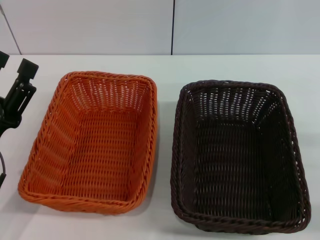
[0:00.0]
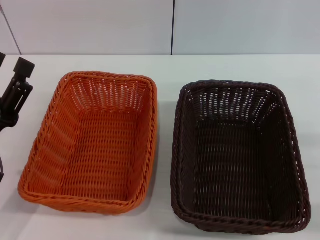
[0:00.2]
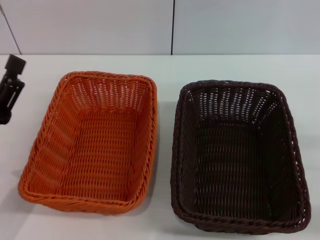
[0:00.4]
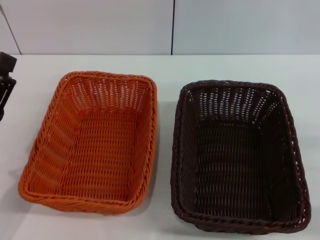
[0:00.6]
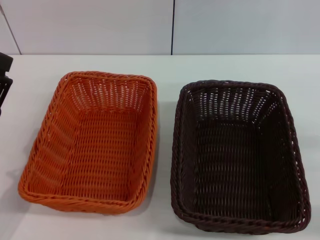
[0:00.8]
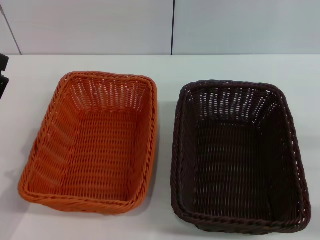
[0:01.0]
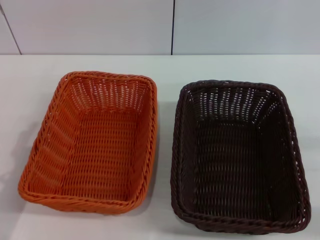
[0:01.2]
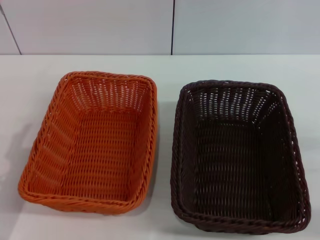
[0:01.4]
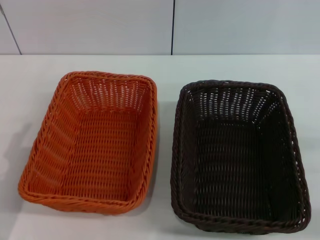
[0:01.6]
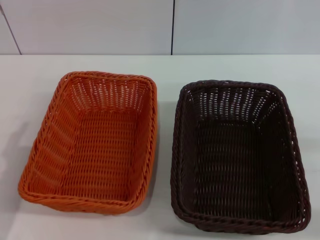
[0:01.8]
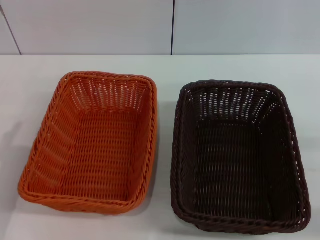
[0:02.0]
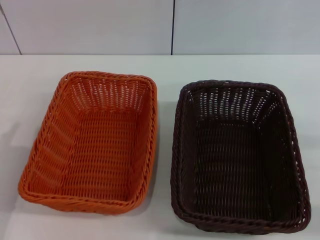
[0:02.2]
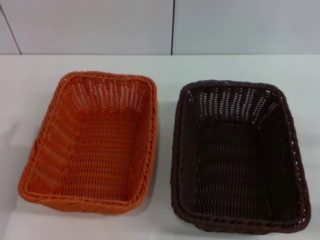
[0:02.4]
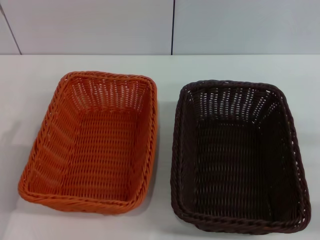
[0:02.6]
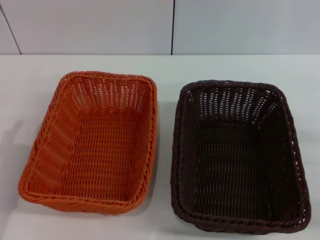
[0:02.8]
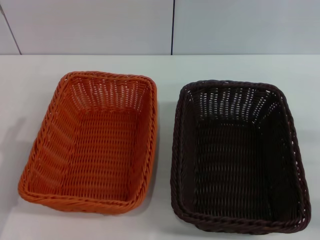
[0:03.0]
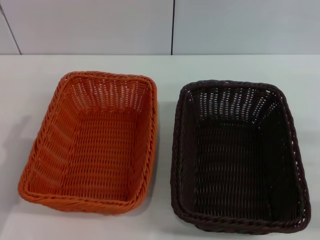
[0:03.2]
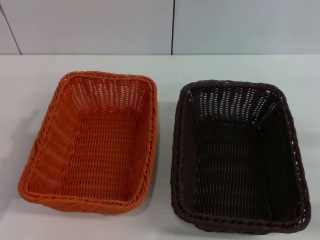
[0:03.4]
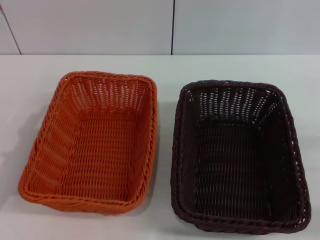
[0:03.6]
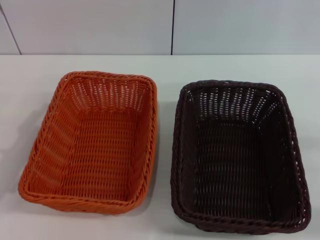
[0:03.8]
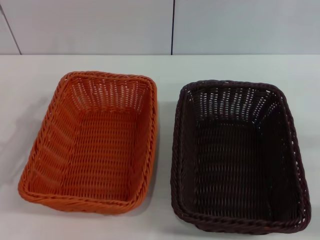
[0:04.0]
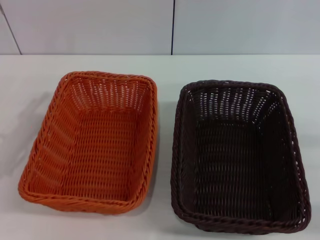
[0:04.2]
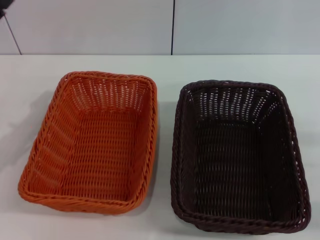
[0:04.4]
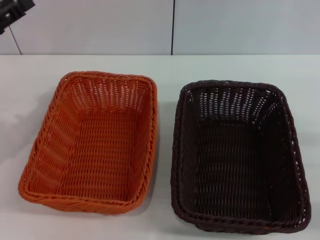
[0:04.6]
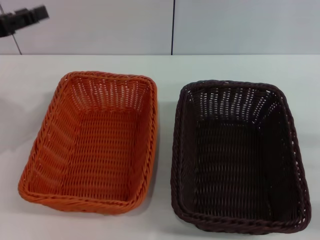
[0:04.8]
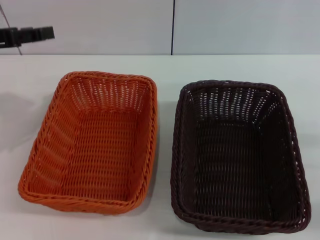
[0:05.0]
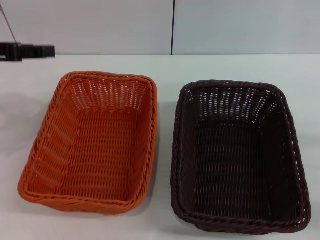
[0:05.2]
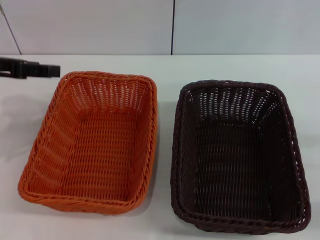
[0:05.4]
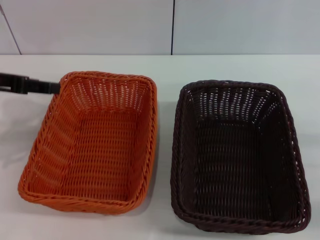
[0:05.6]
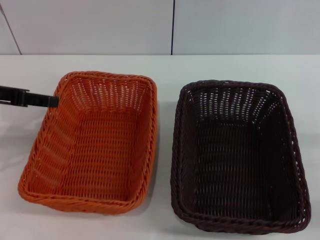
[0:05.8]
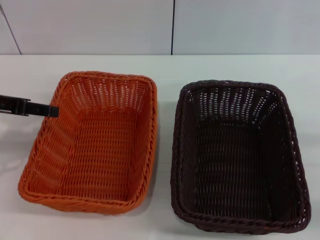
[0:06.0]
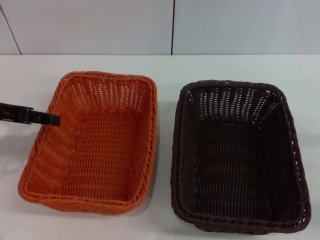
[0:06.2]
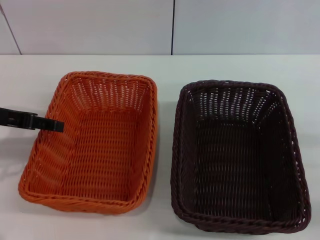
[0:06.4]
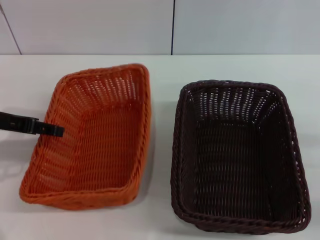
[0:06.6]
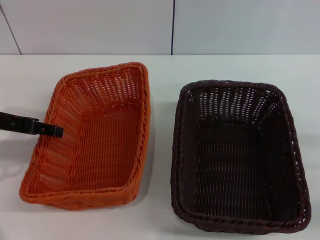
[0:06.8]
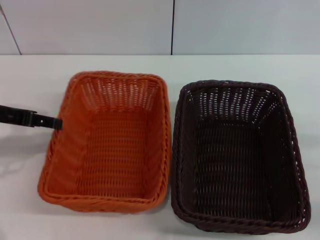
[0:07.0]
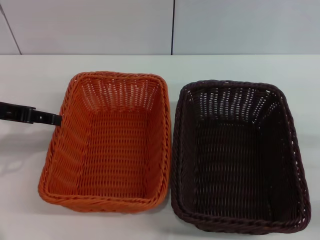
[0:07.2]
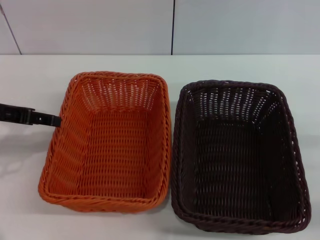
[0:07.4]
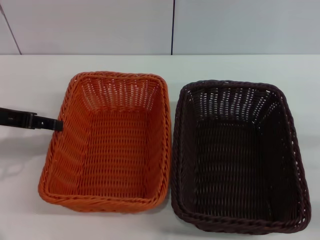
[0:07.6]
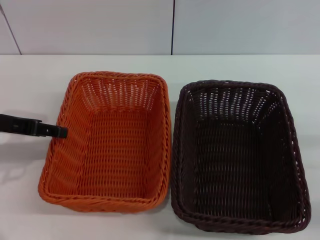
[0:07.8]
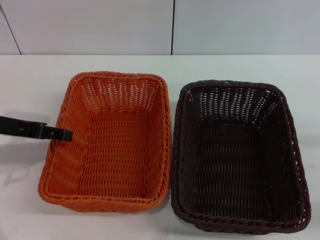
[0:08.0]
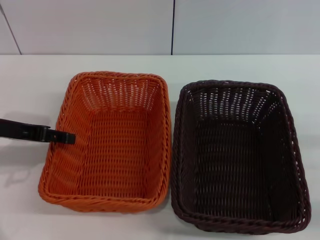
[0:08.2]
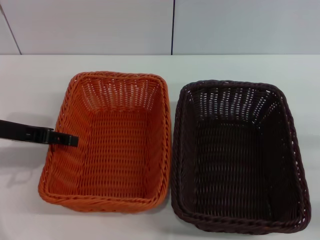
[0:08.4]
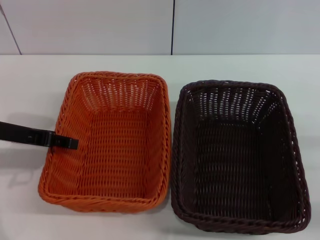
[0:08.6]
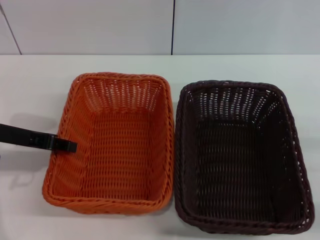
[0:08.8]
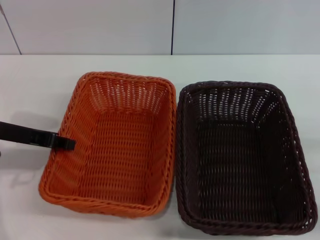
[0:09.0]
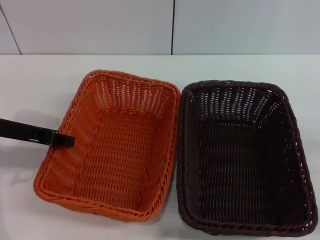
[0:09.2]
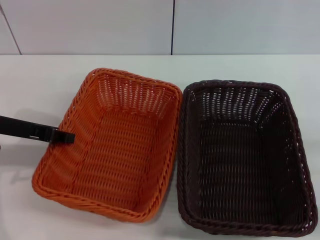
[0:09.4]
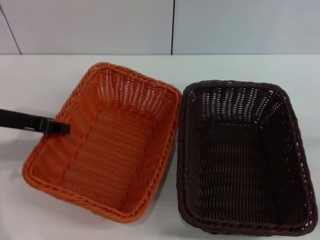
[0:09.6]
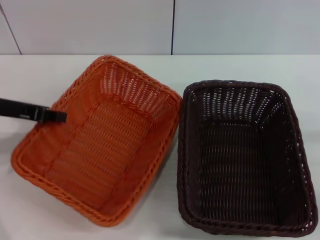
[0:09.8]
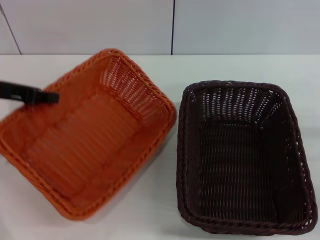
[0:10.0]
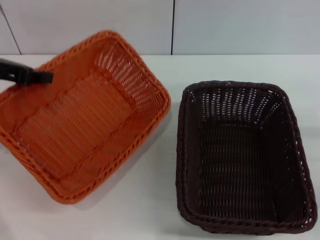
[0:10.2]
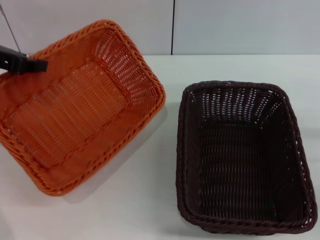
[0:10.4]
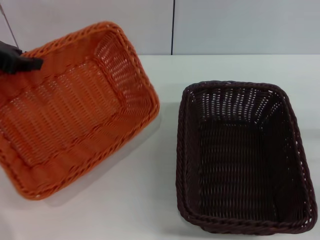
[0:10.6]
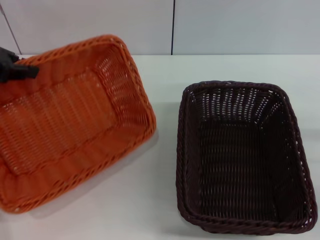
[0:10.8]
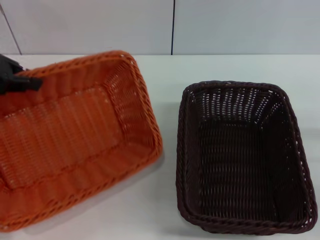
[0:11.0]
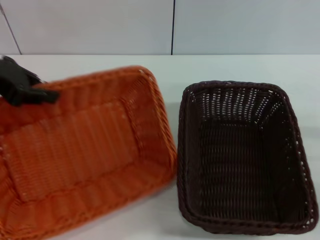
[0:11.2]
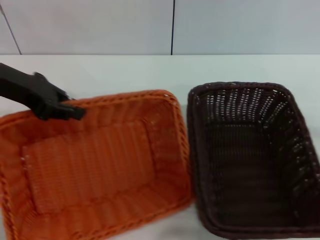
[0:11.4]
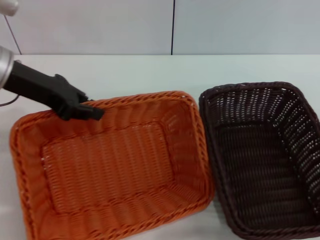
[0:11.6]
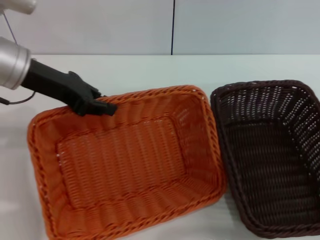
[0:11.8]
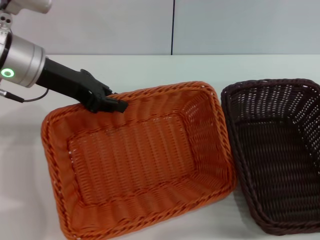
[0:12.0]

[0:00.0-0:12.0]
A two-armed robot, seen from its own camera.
Step, 0:00.0 to 0:09.6: Pick up the light basket with the left gripper.
0:00.0 to 0:01.6: There are only small adjustments of the grippers.
0:03.0 to 0:04.4: The left gripper shifts some 10 cm forward and upward.
0:06.0 to 0:07.6: There are only small adjustments of the grippers.
0:07.6 to 0:09.0: The left gripper closes up.
0:09.0 to 0:10.4: The left gripper moves upward, about 10 cm.
0:10.4 to 0:12.0: The left gripper moves to the right, roughly 10 cm.

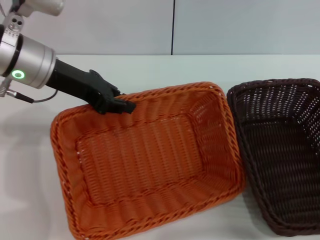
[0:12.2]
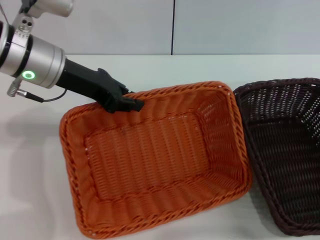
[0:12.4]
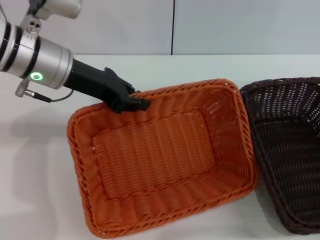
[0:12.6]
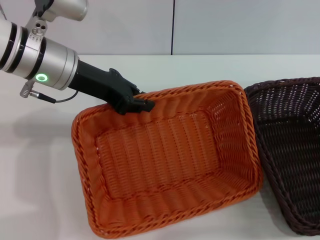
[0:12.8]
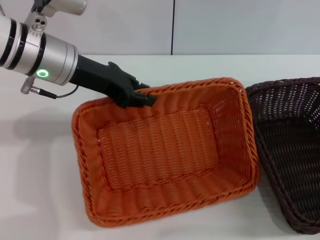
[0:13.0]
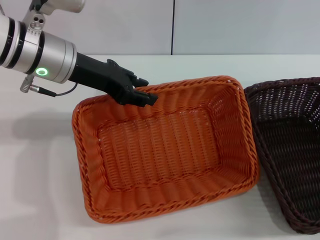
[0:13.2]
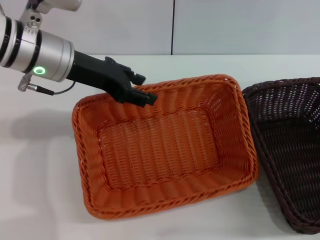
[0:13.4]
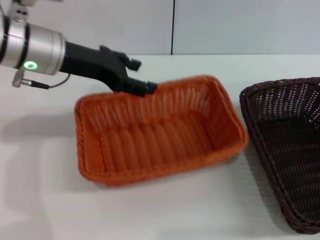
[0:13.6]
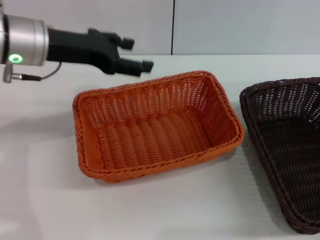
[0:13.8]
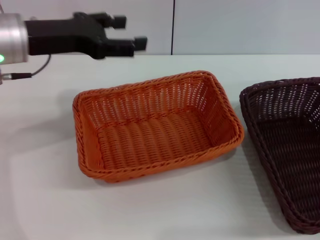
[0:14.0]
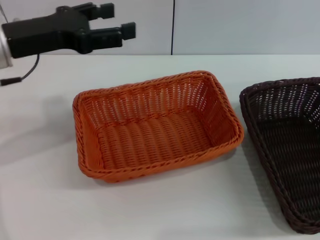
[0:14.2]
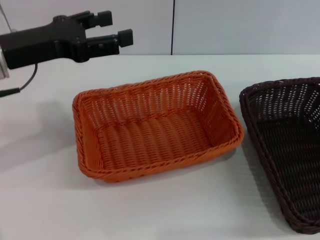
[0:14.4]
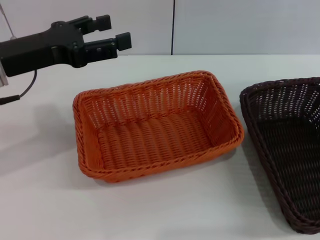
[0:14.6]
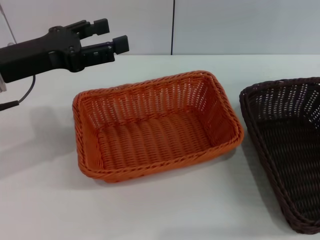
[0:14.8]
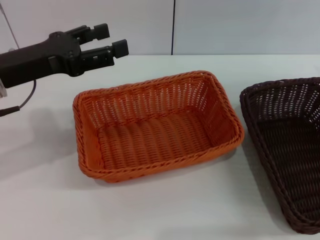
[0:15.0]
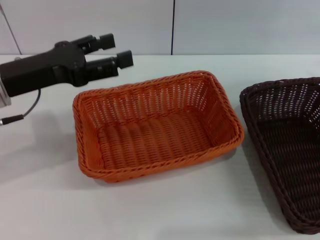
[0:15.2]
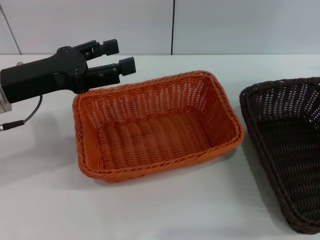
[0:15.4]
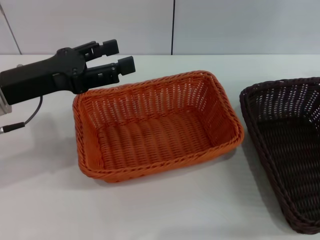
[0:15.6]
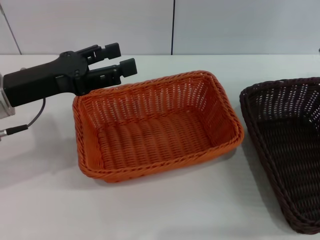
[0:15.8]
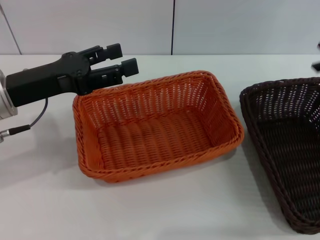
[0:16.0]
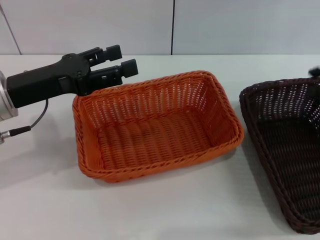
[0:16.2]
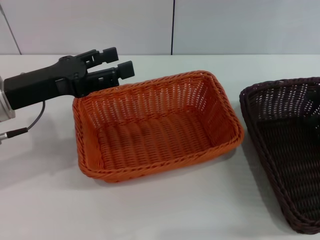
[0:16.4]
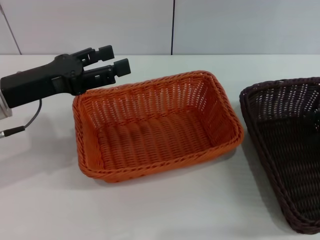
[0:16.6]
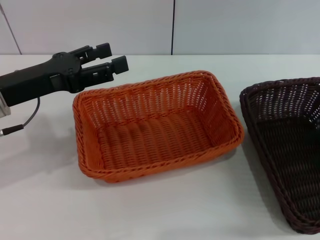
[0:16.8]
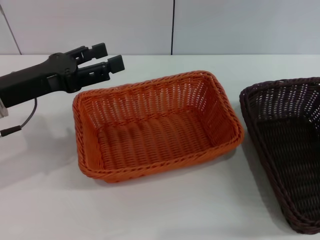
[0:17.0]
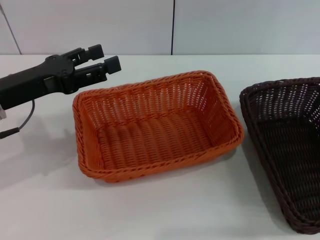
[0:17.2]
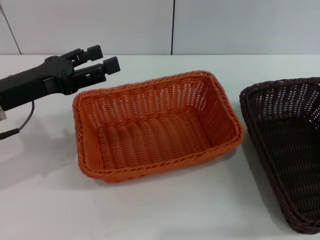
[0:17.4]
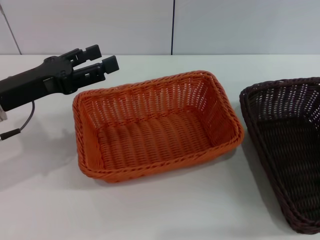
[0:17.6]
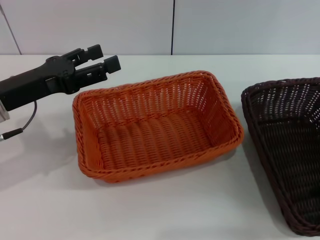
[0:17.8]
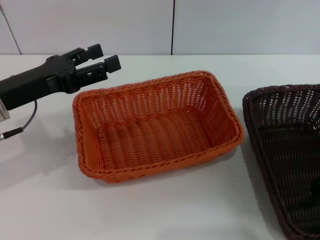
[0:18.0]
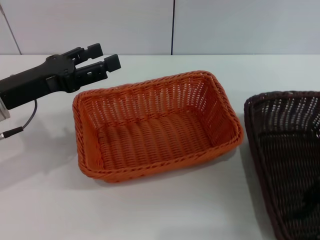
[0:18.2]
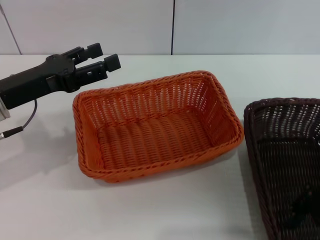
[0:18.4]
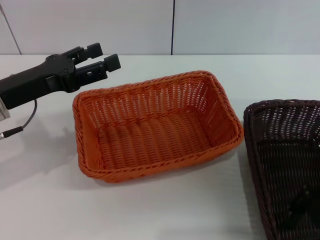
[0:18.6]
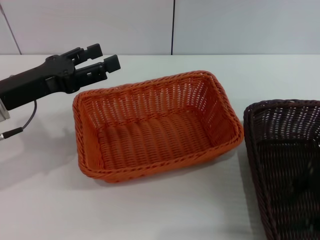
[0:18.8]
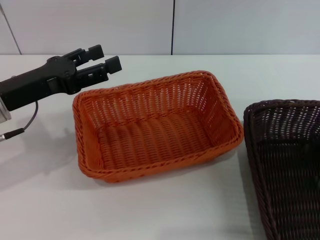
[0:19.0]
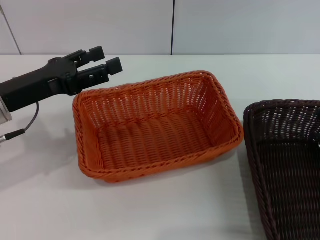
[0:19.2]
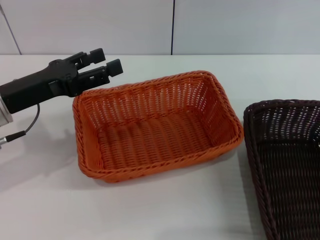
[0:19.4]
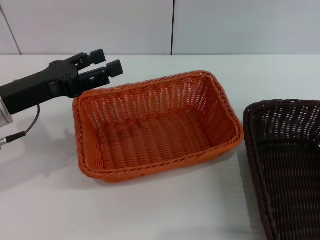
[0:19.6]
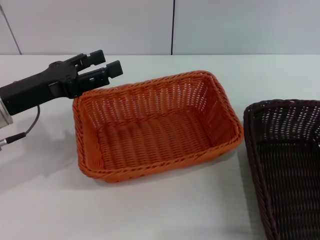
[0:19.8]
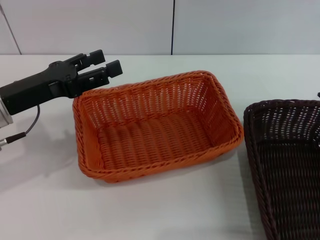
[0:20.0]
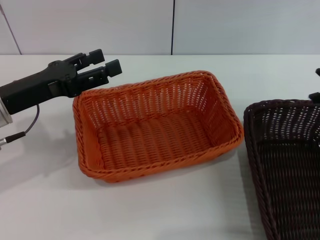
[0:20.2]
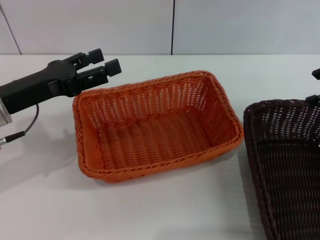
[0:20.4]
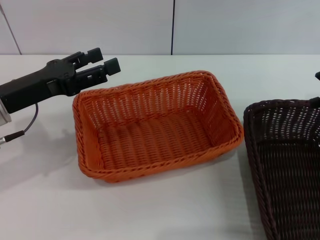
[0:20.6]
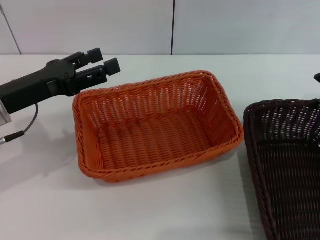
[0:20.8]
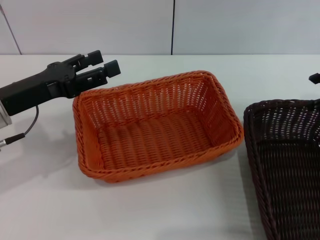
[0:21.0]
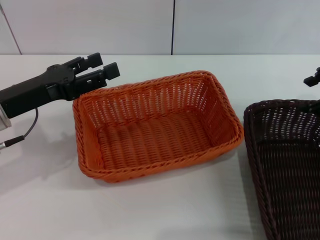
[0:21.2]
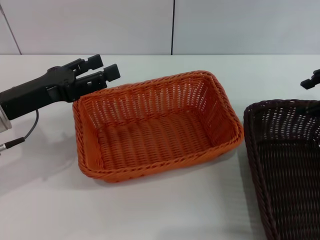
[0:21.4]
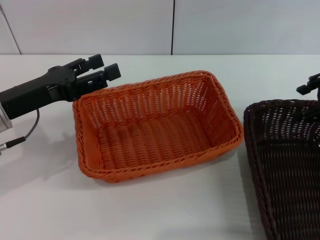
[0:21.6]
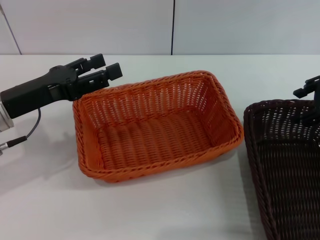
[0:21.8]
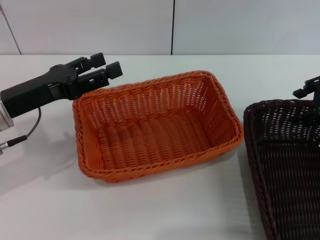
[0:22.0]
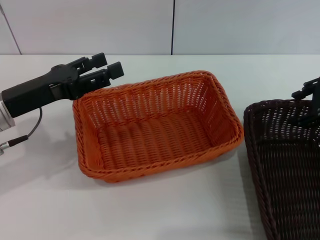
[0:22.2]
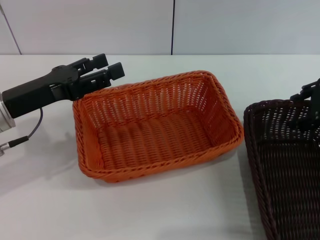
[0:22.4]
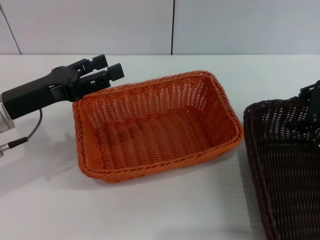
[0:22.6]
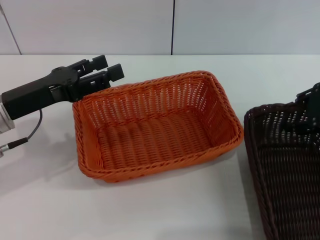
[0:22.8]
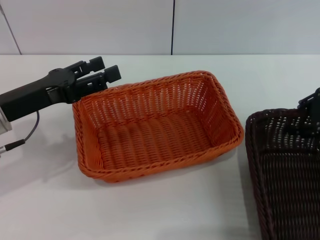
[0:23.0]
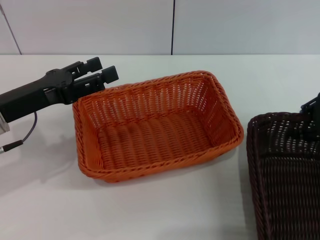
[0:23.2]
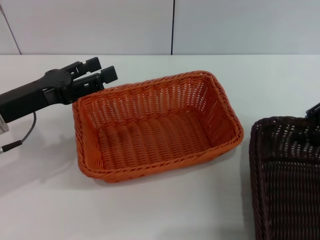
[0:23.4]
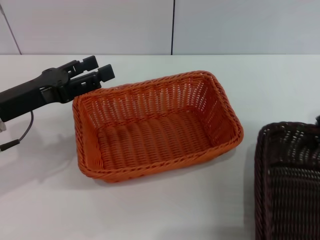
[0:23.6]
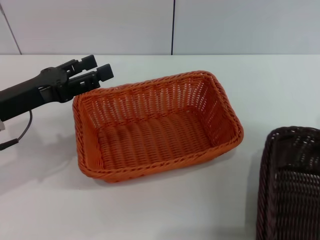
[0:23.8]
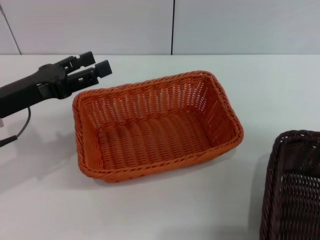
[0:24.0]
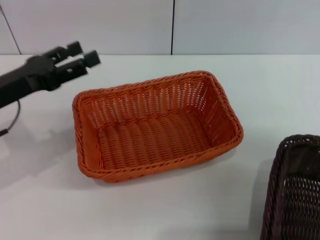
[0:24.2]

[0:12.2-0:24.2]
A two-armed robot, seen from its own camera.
Step, 0:13.8 to 0:23.8: Pick up the dark basket with the right gripper.
0:12.2 to 0:13.8: The left gripper opens.
0:13.8 to 0:15.2: The right gripper shifts roughly 30 cm upward and forward, while the left gripper is displaced backward by about 5 cm.
0:15.2 to 0:16.6: The right gripper travels backward, to the left and downward by some 10 cm.
0:16.6 to 0:18.2: The right gripper heads backward and to the left, covering approximately 10 cm.
0:18.2 to 0:19.8: The right gripper shifts some 15 cm to the right and forward.
0:19.8 to 0:21.2: The grippers stay close to where they were, moving slightly.
0:21.2 to 0:22.6: The grippers stay close to where they were, moving slightly.
0:22.6 to 0:24.2: The right gripper shifts roughly 10 cm backward and to the right, and closes up.
